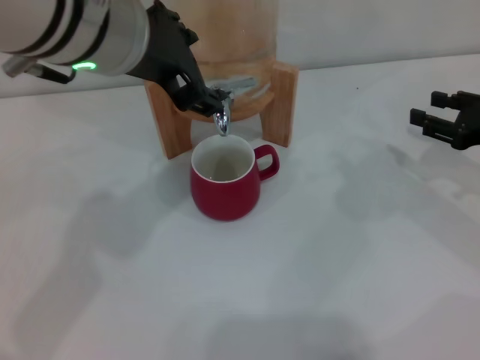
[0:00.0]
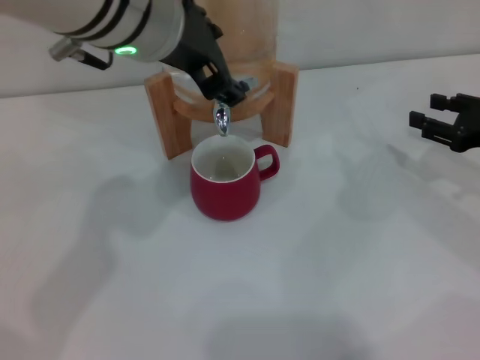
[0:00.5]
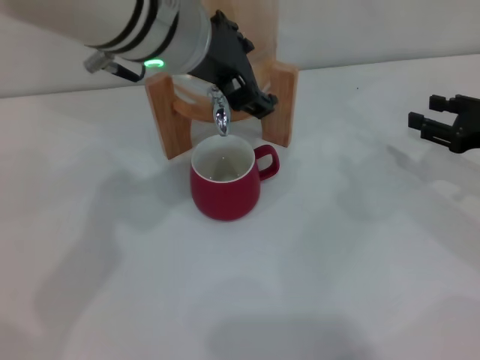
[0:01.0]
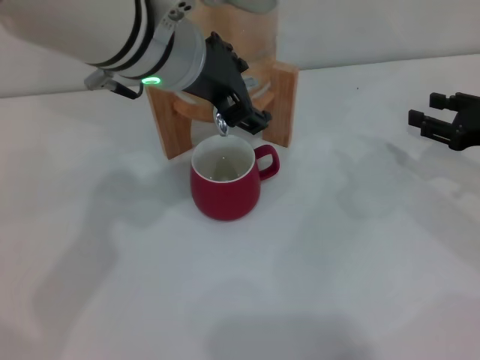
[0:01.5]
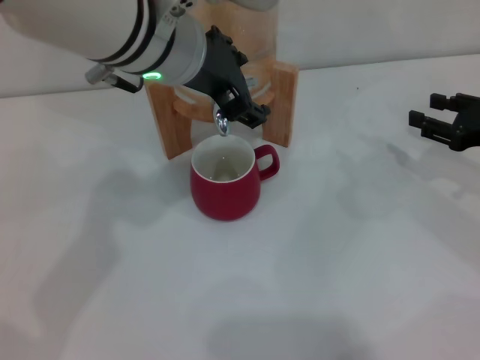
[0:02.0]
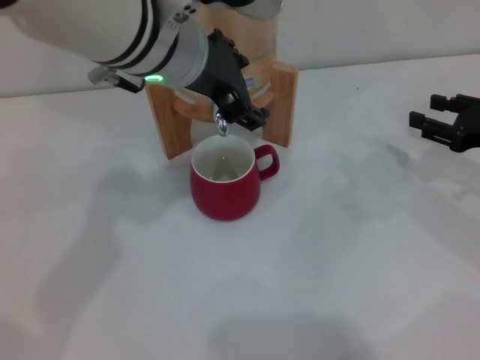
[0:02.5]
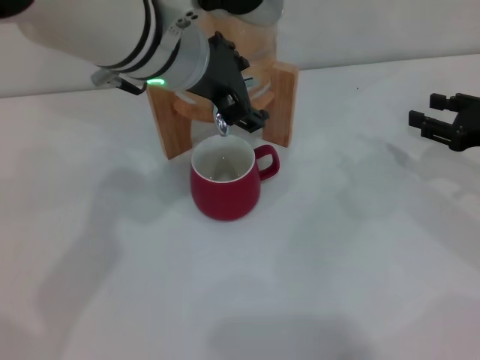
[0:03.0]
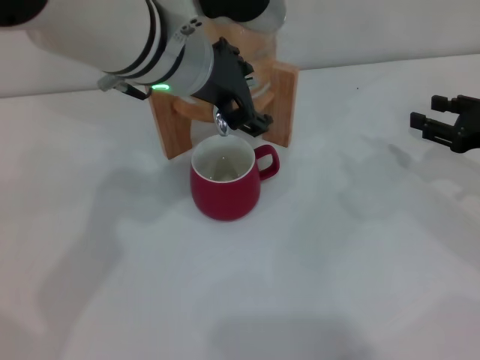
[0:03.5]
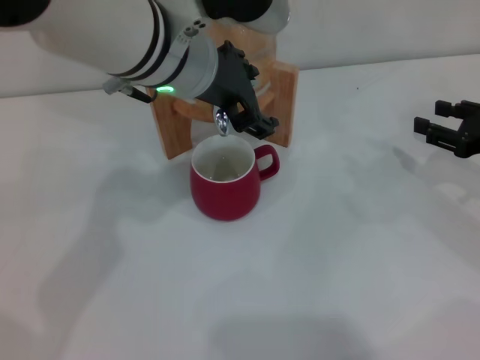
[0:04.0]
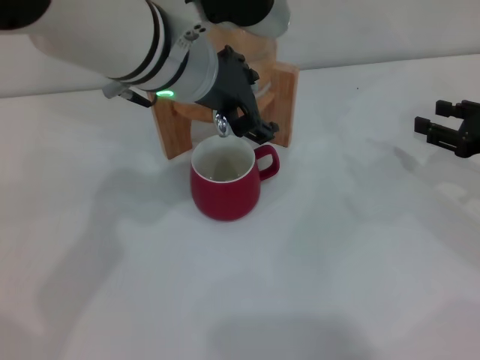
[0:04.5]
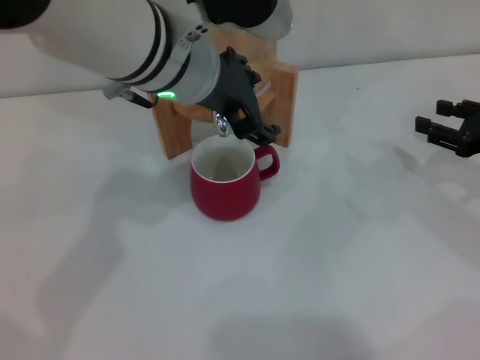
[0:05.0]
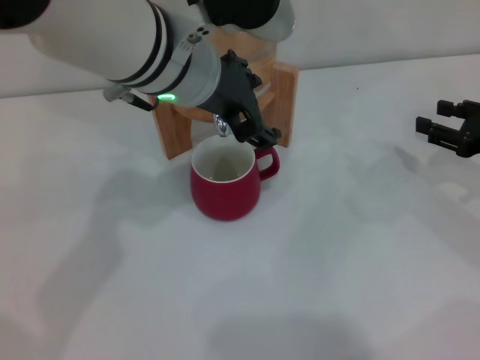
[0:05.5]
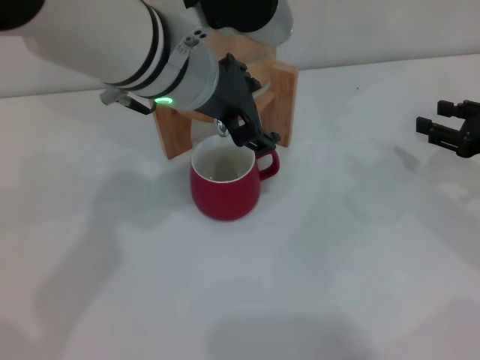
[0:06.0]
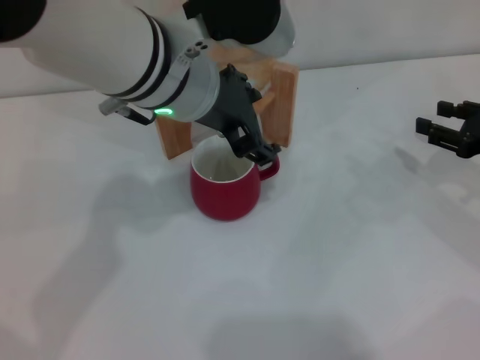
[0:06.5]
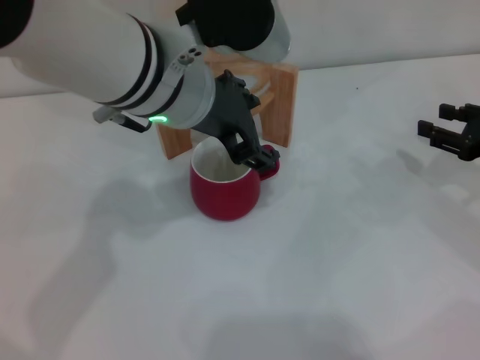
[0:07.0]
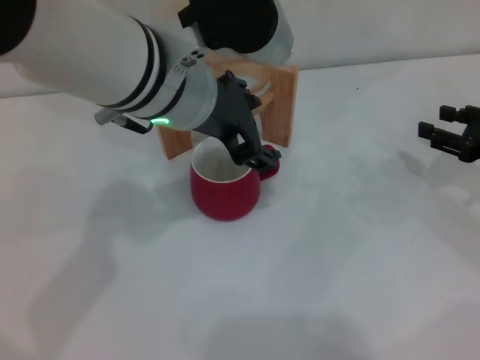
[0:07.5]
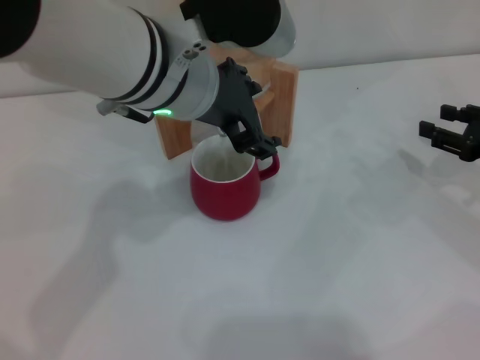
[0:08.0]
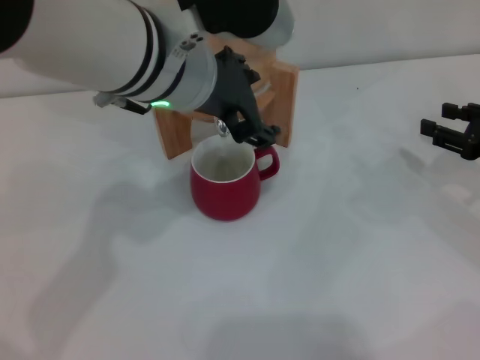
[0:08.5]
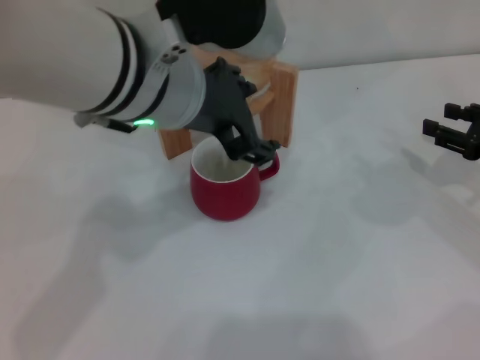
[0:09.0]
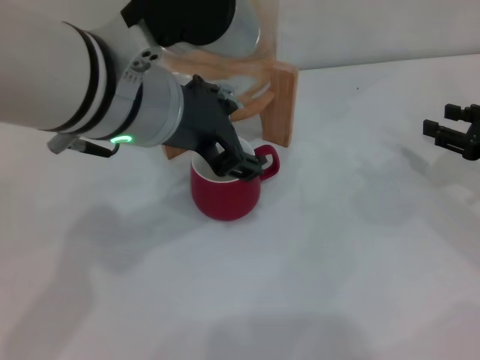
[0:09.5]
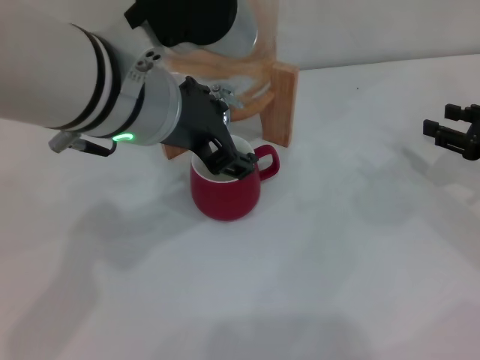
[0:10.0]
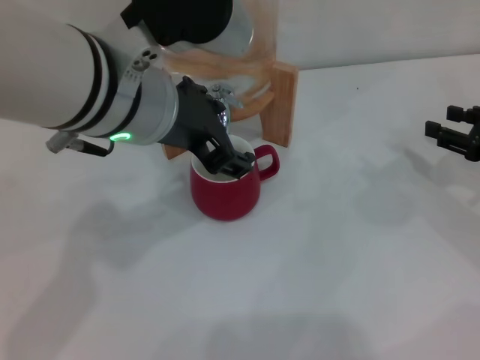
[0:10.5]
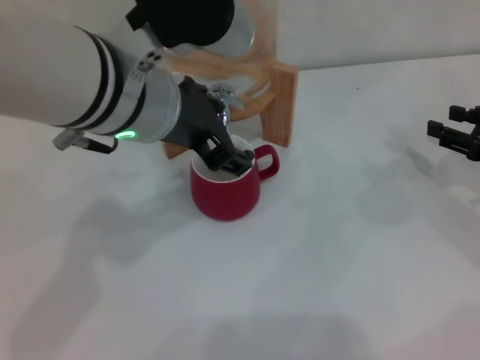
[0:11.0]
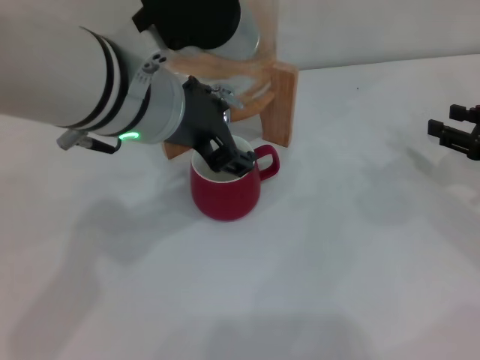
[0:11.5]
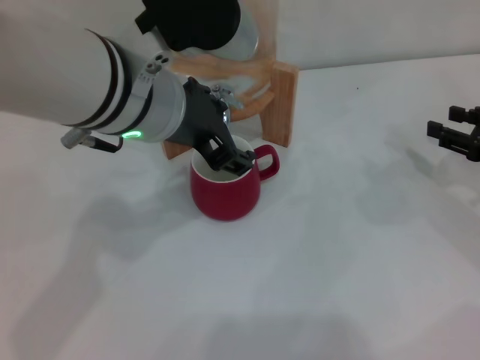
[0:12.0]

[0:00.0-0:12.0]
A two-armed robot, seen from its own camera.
Task of the whole recording: the right gripper pick up the red cup and place it horizontally under the faucet, the left gripper turn on the faucet to fill the cup, and then turn off the faucet.
0:00.0 to 0:02.0: The left gripper ends up roughly 5 cm from where it was.
0:02.0 to 0:04.0: The grippers move only a little.
0:04.0 to 0:06.0: Neither gripper changes place.
0:06.0 to 0:08.0: There are only small adjustments of the grippers.
0:08.0 to 0:12.0: The grippers move only a little.

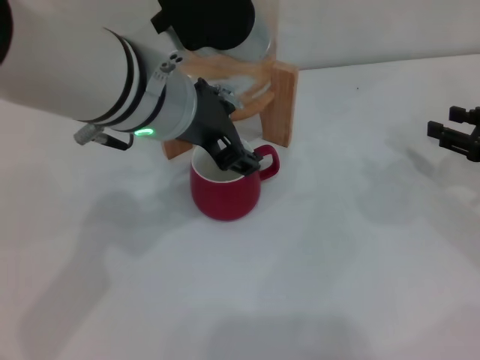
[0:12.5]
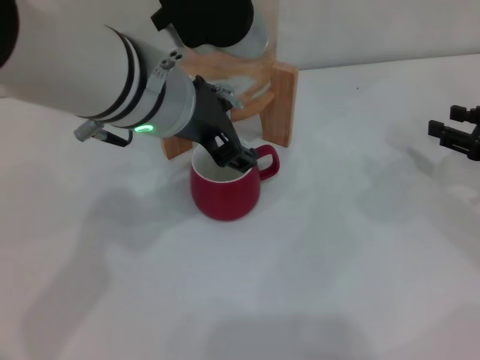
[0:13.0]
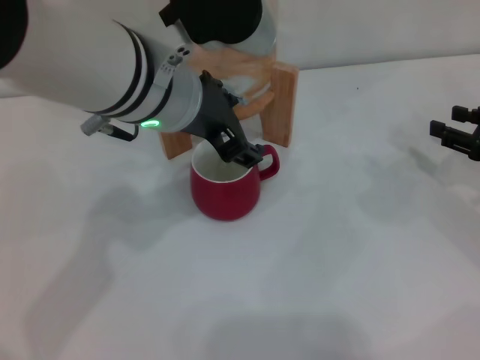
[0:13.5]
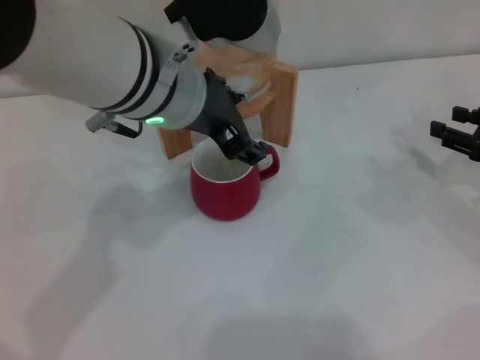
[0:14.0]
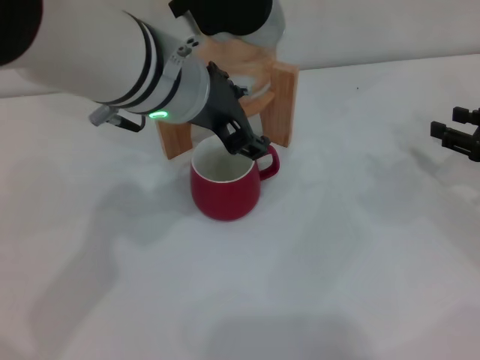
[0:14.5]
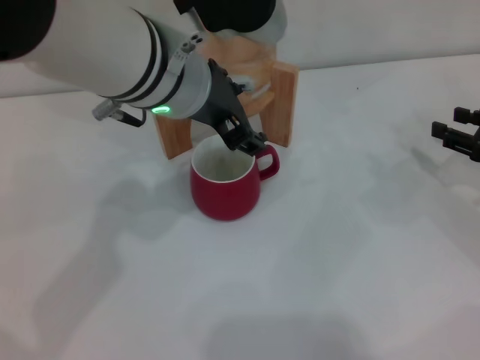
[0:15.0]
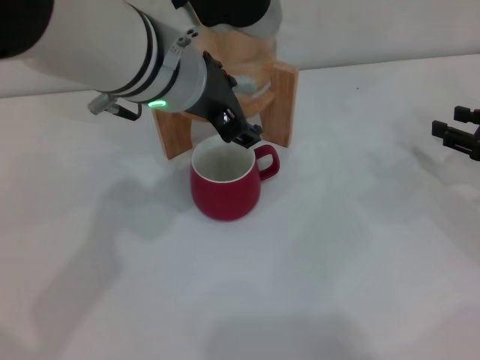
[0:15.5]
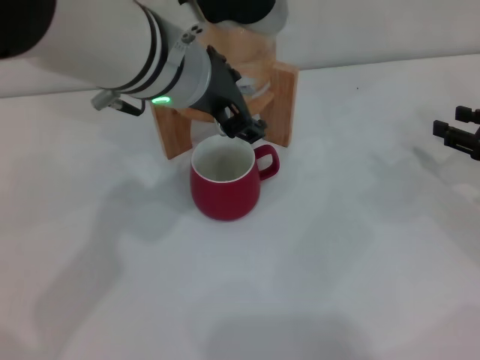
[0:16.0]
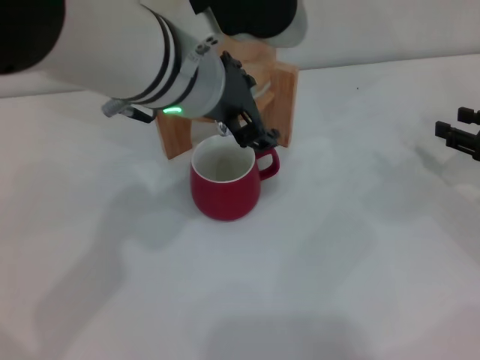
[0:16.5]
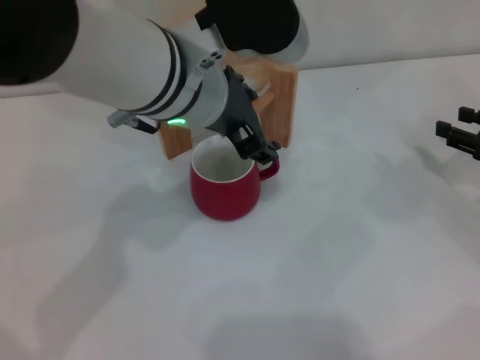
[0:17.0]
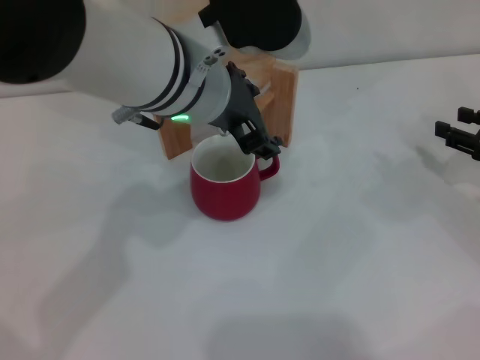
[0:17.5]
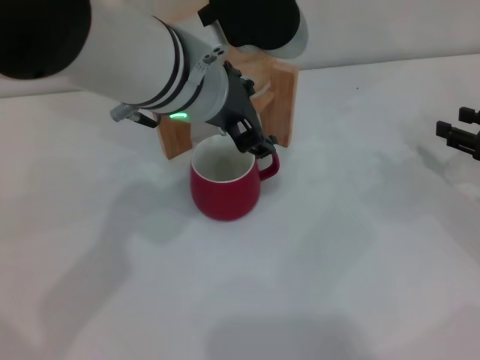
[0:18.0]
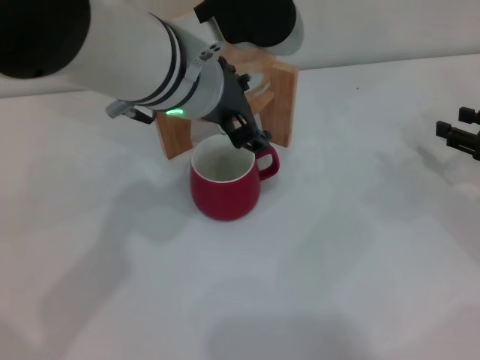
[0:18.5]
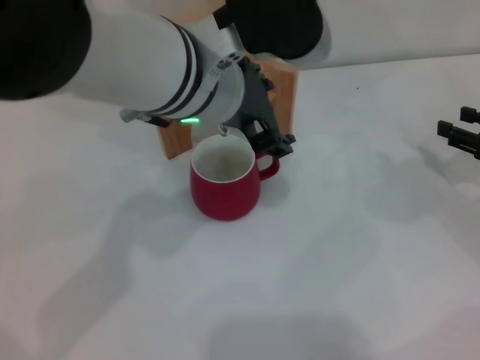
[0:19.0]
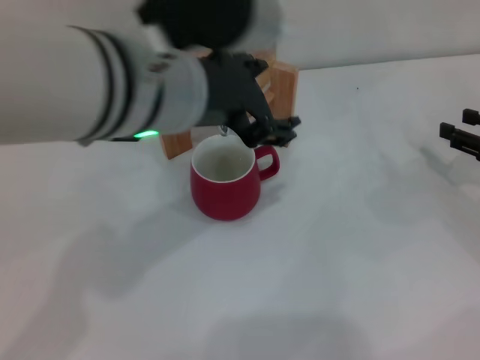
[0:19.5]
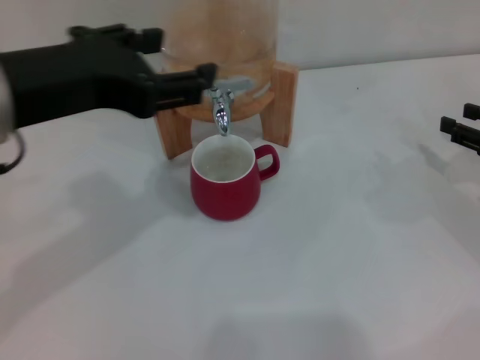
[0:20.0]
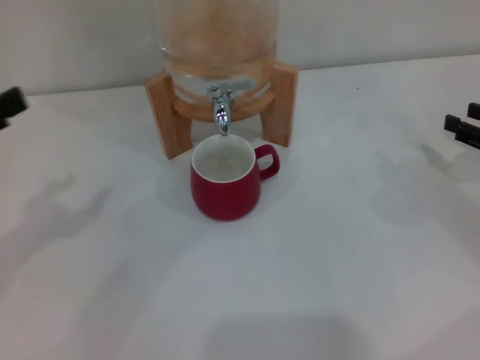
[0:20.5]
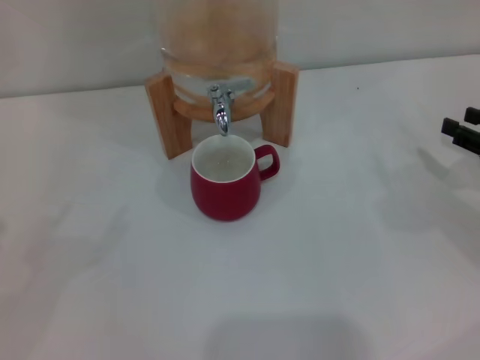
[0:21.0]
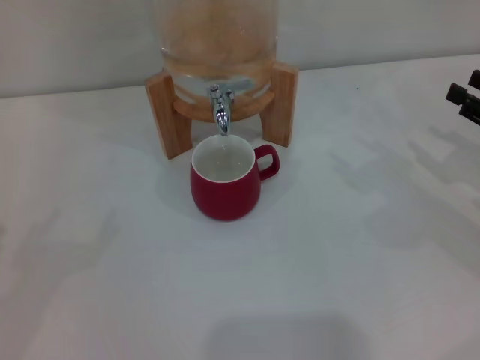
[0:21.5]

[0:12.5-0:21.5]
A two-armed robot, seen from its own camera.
Task of the whole recording: the right gripper pick up the red cup and place it horizontally under the faucet, the left gripper turn on the faucet to fill the cup, and then turn off the faucet.
Step, 0:12.5 to 0:19.0: Close the dispenser valve with the left gripper.
0:12.5 to 0:14.5: There are only small adjustments of the grippers.
0:14.5 to 0:17.0: Neither gripper changes place.
0:17.0 to 0:19.5: The left gripper changes place by some 5 cm.
0:19.5 to 0:21.5: The left gripper travels to the left and downward by approximately 40 cm.
